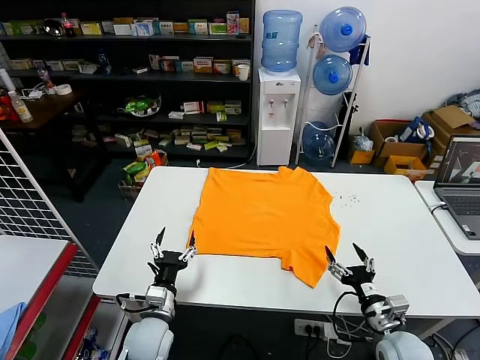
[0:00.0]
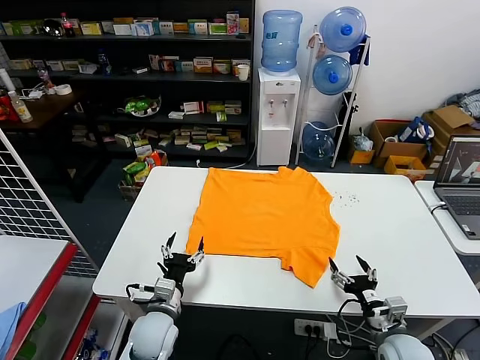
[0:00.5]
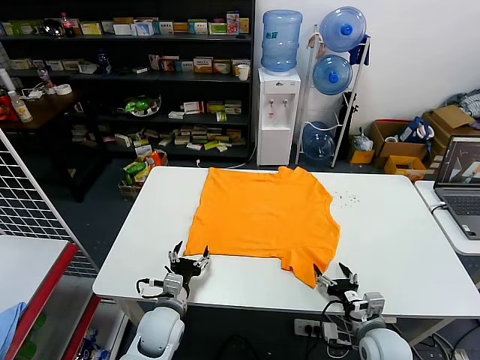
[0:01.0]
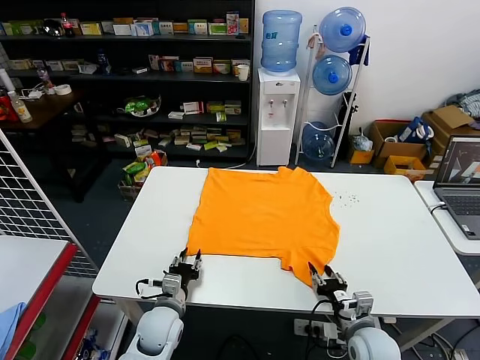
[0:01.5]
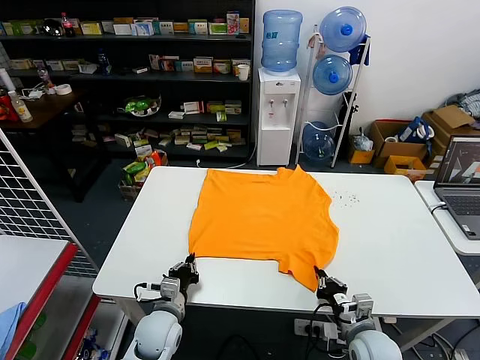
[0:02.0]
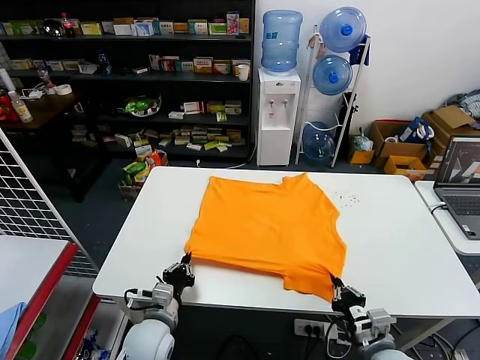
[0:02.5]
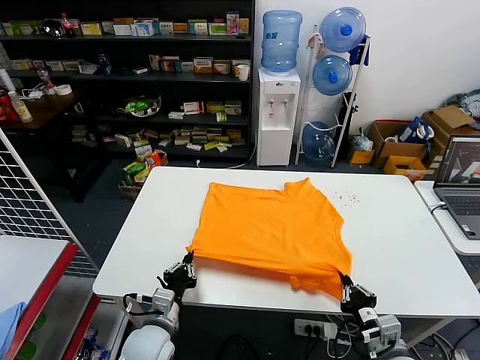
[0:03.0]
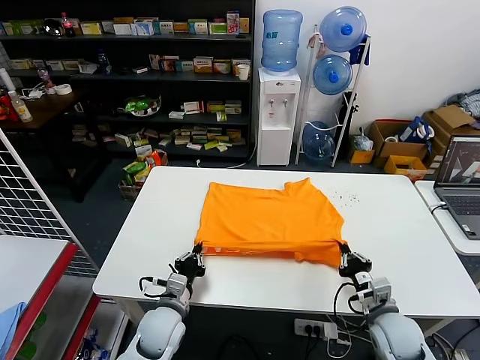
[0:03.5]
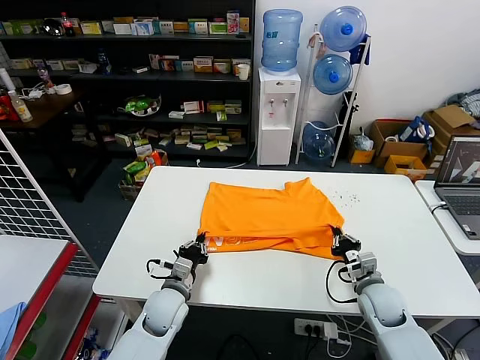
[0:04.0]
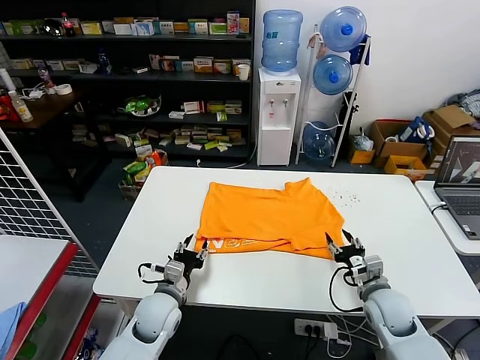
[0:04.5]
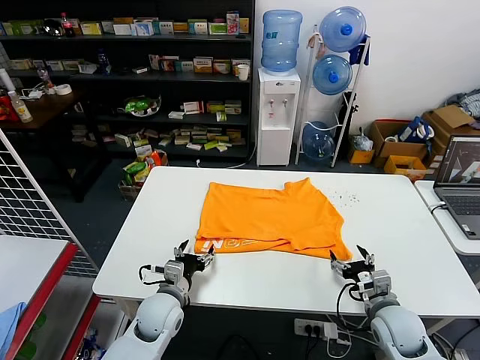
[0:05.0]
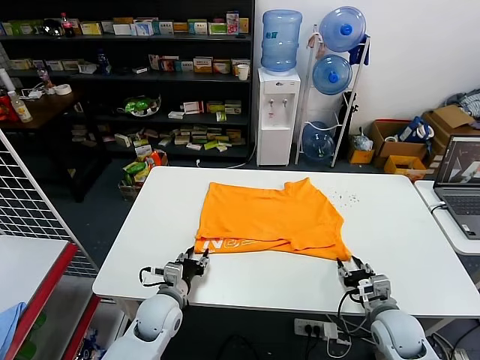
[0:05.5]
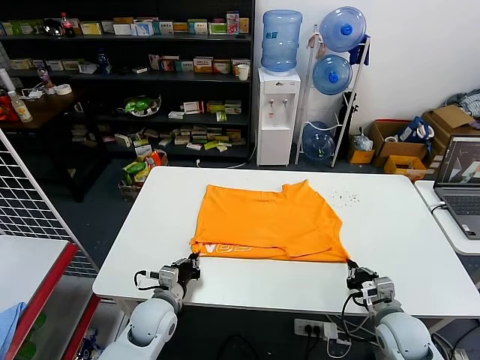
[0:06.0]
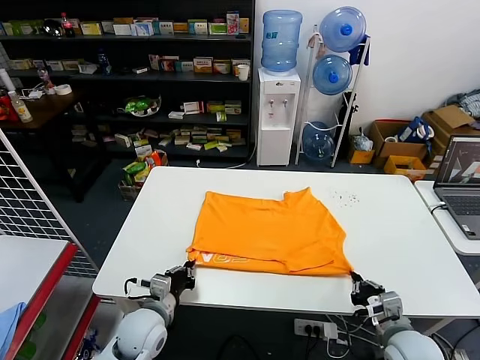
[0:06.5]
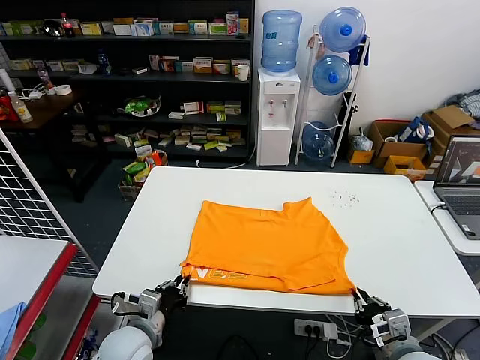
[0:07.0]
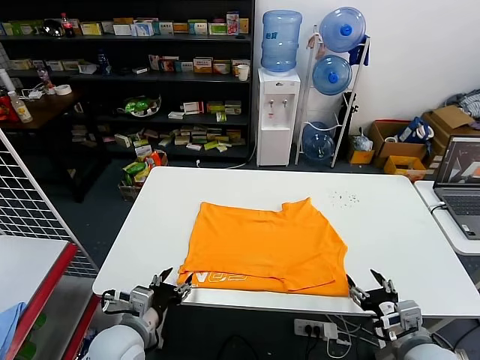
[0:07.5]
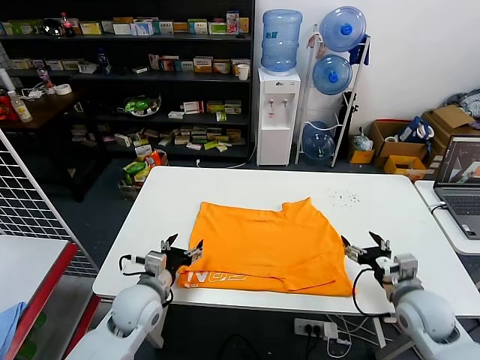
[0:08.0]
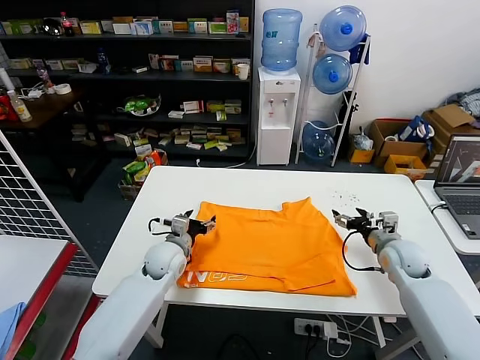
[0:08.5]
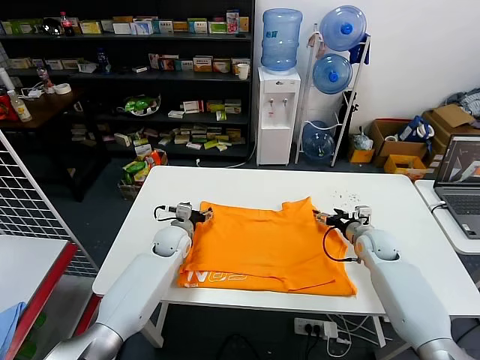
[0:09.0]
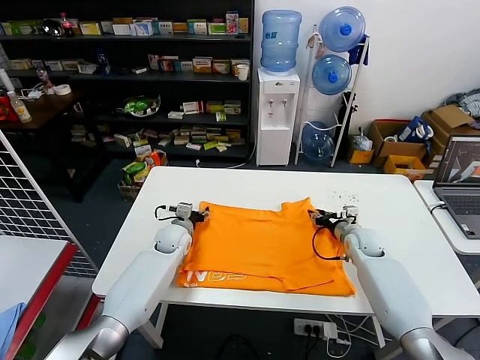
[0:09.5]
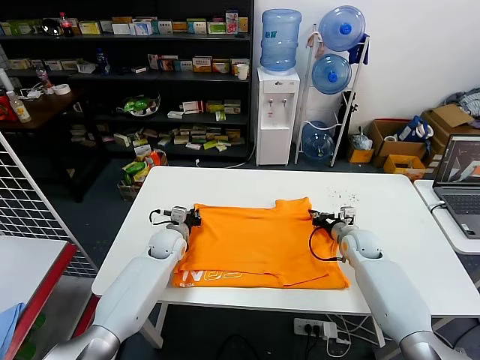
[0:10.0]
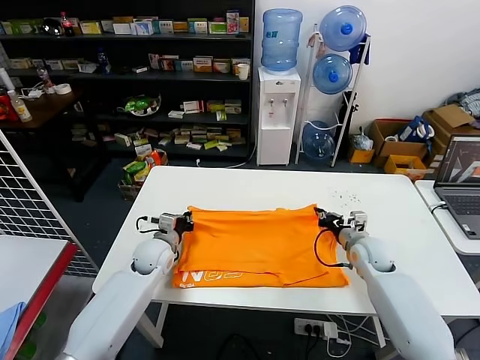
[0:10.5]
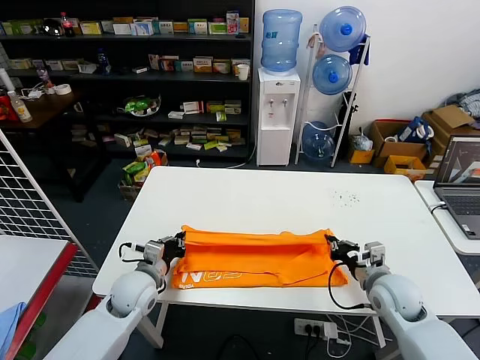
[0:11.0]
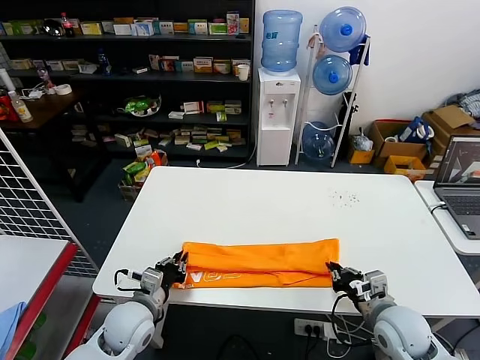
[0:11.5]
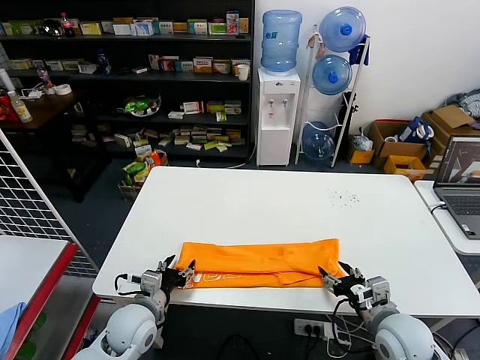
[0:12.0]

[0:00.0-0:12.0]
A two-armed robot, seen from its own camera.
Task of the whole recording: fold and organize the clothes.
Step, 0:00.0 to 0:02.0: use both grippers simultaneously to clamp the lower edge of the clothing fabric.
Step, 0:02.5 to 0:04.0: use both grippers to drag the lower edge of the fabric forward and fold it over the upper edge.
Step, 0:04.5 to 0:07.0: Drag the clothes downward with both gripper.
Step, 0:07.5 to 0:10.0: use both grippers simultaneously to clamp the upper edge of the clothing fabric.
Step, 0:10.5 to 0:11.5: use both grippers to drag the upper edge of the fabric backward and fold it over the lower edge.
0:02.0 to 0:04.0: The right gripper heads forward, covering roughly 10 cm.
0:04.0 to 0:06.0: The right gripper travels backward by roughly 10 cm, and opens and closes again; the left gripper opens and closes again.
0:06.0 to 0:08.0: Both grippers travel together upward, about 5 cm. The left gripper travels backward and back again, roughly 10 cm each way, and opens up; the right gripper moves about 10 cm backward and comes back, and opens its fingers.
0:08.0 to 0:10.0: Both grippers move forward, about 20 cm. The left gripper closes up, while the right gripper closes its fingers.
0:10.0 to 0:12.0: Both grippers move backward, approximately 25 cm. The right gripper opens. Meanwhile the left gripper opens up.

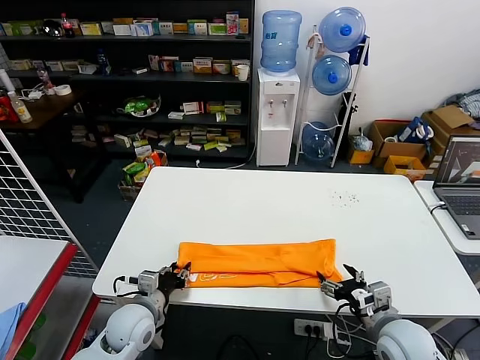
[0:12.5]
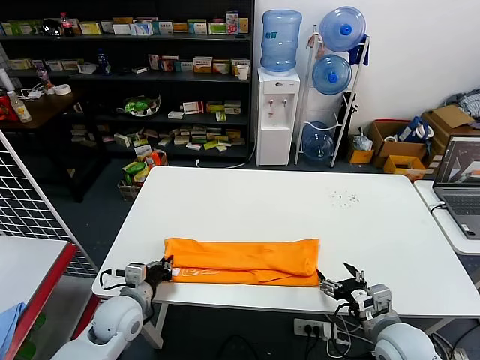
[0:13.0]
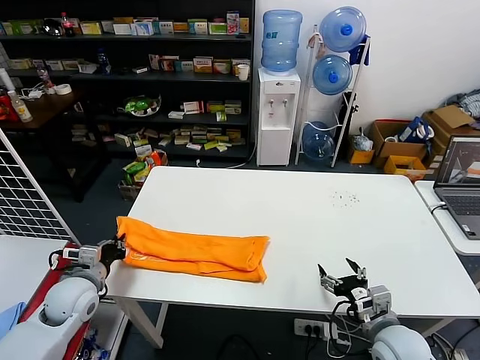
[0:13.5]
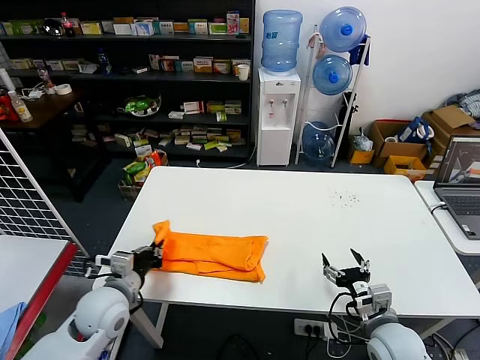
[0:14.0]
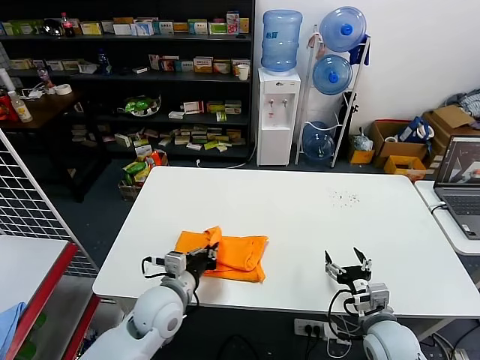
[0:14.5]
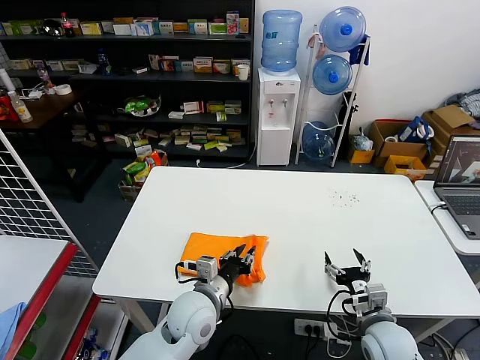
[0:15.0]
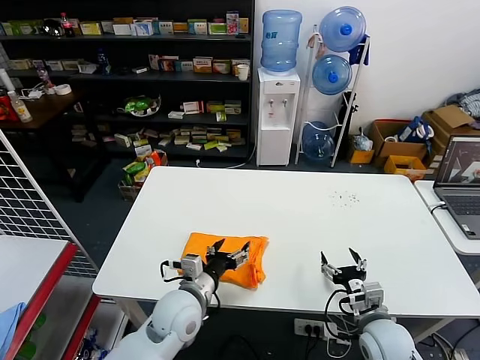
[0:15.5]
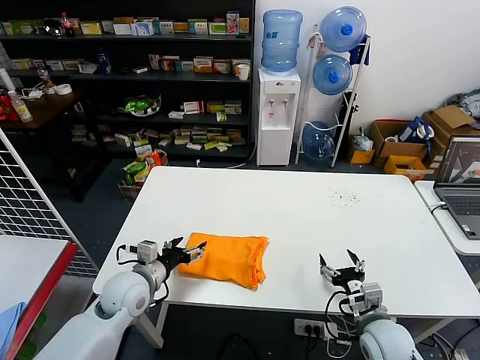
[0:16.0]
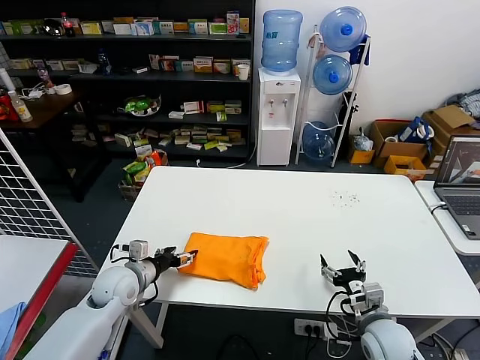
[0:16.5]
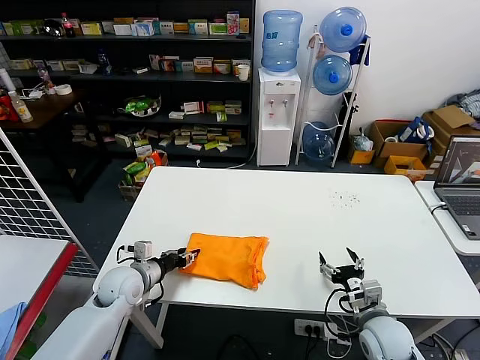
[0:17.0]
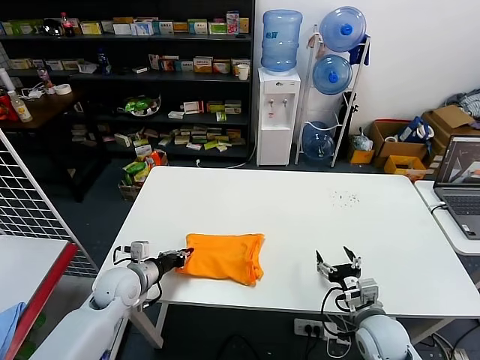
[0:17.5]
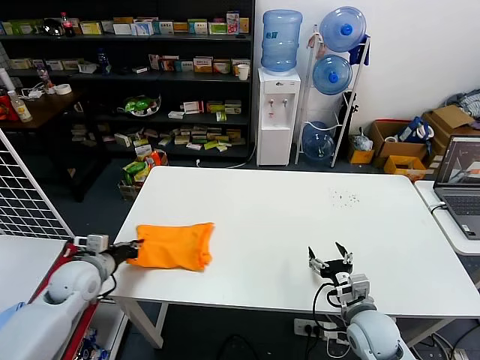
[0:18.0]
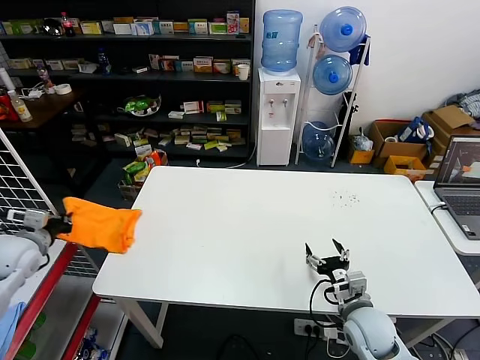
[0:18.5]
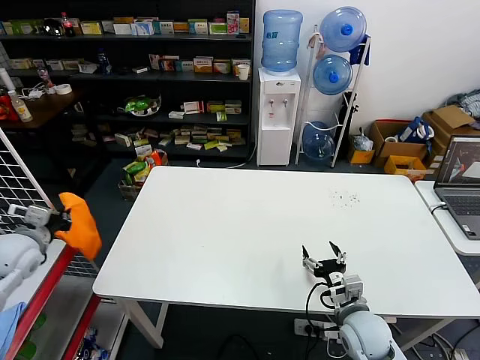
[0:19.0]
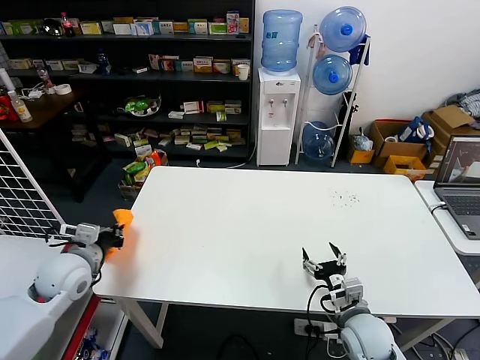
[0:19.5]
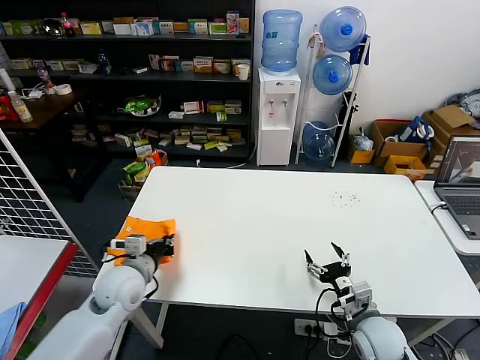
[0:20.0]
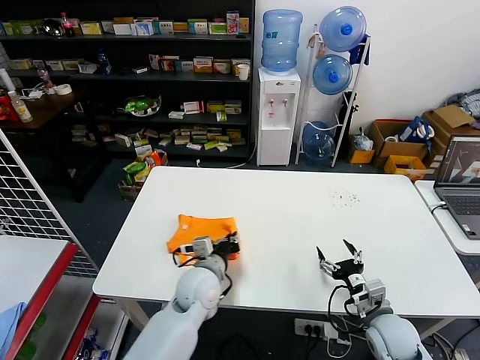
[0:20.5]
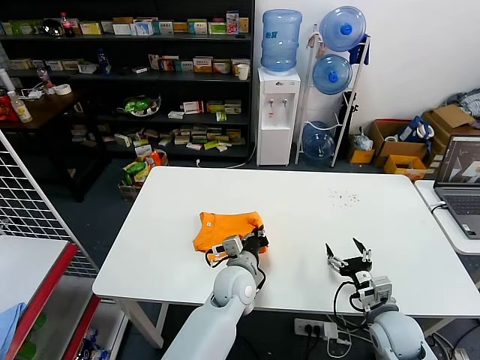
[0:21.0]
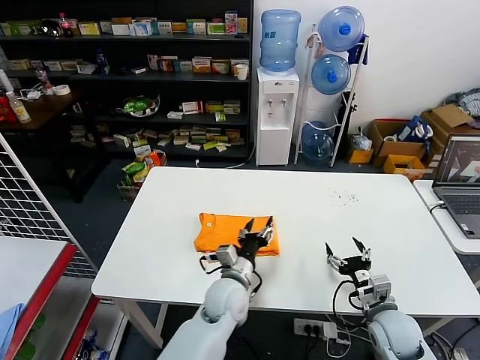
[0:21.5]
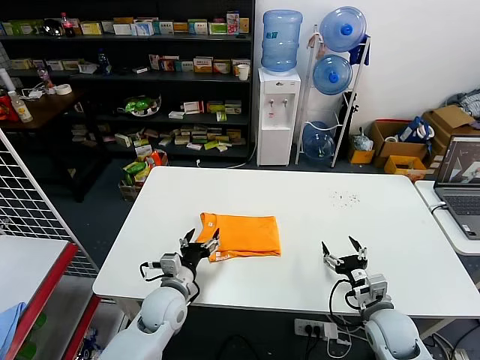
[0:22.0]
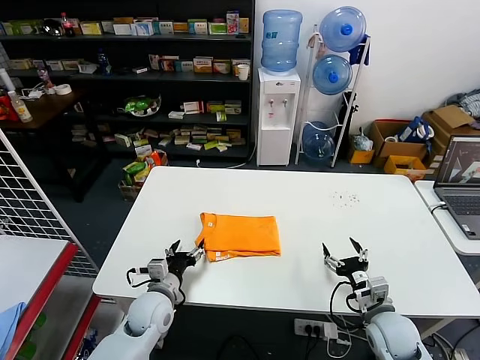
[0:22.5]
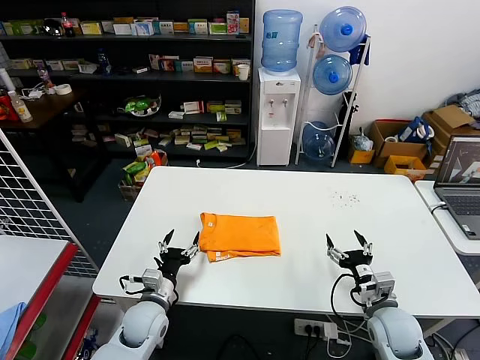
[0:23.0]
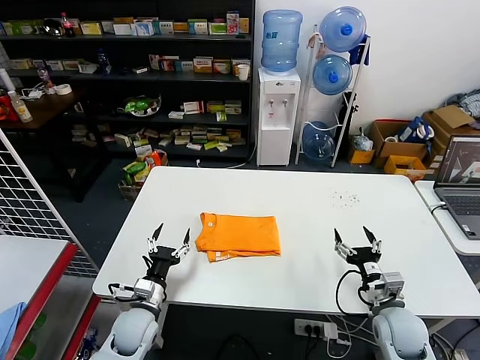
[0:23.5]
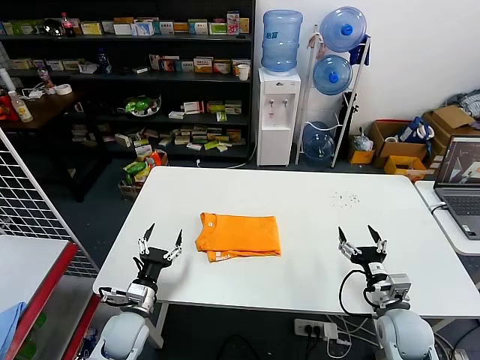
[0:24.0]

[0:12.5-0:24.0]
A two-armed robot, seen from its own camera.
Task of the whole recording: fold and organize the clothes.
Step, 0:13.0 to 0:14.5: use the left gripper to drag the left edge of the fabric to the left and folds it over the right edge.
Step, 0:15.5 to 0:21.0: Flip the folded clothes over with left gripper.
0:12.5 to 0:14.5: The left gripper is displaced upward by approximately 5 cm, moves about 10 cm to the left and comes back, and closes its fingers.
0:14.5 to 0:16.5: The left gripper heads to the left and forward, covering roughly 15 cm, and opens up.
0:16.5 to 0:18.5: The left gripper is displaced to the left and upward by approximately 20 cm, and closes up.
0:18.5 to 0:20.0: The left gripper travels to the right by approximately 20 cm.
0:20.0 to 0:22.0: The left gripper goes some 15 cm to the right and downward, and opens.
0:22.0 to 0:24.0: The left gripper shifts some 10 cm to the left.
